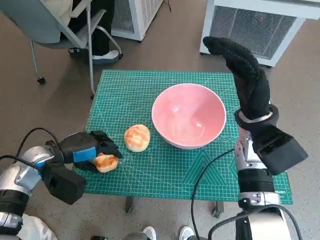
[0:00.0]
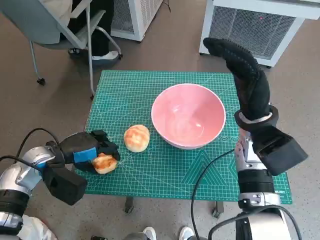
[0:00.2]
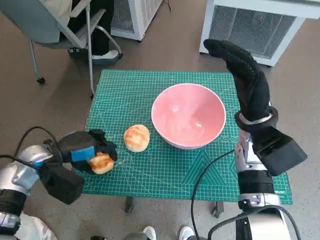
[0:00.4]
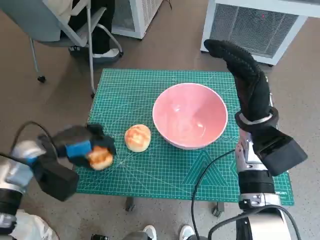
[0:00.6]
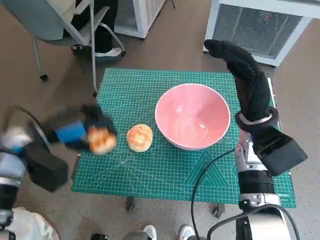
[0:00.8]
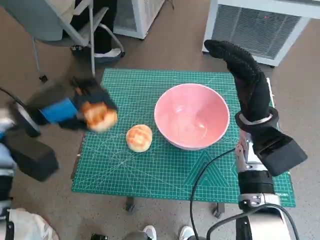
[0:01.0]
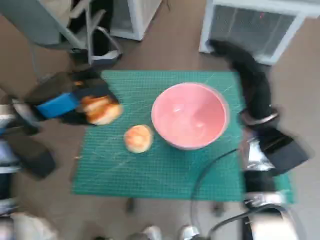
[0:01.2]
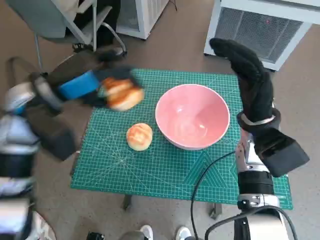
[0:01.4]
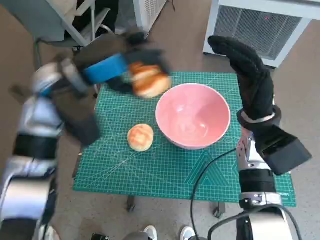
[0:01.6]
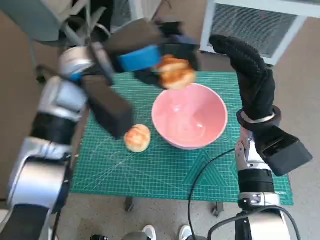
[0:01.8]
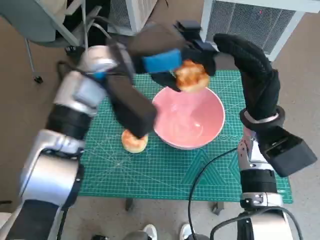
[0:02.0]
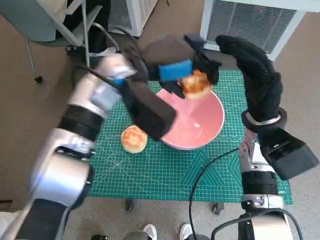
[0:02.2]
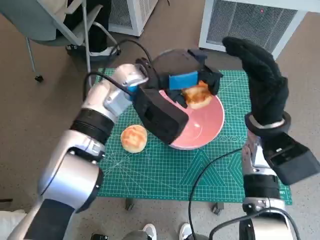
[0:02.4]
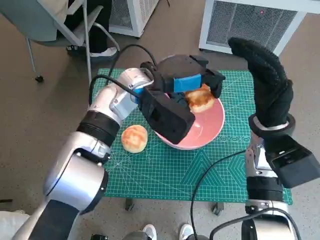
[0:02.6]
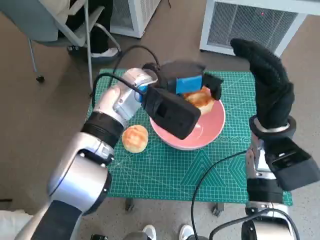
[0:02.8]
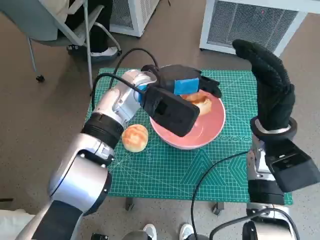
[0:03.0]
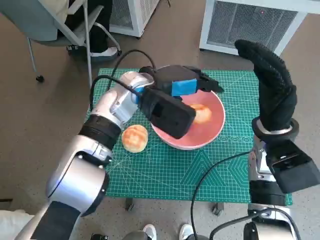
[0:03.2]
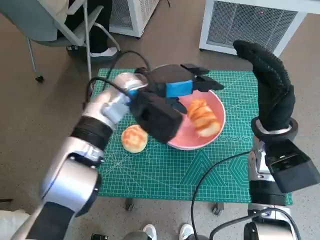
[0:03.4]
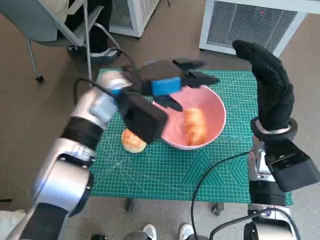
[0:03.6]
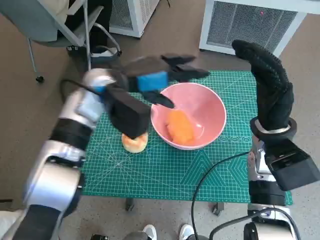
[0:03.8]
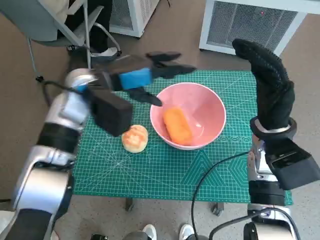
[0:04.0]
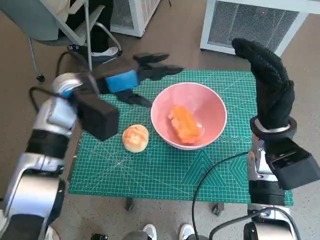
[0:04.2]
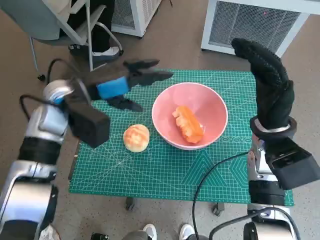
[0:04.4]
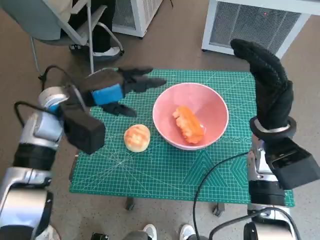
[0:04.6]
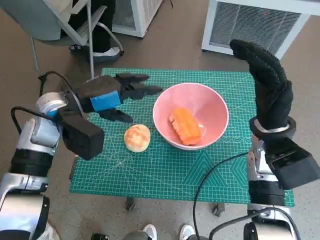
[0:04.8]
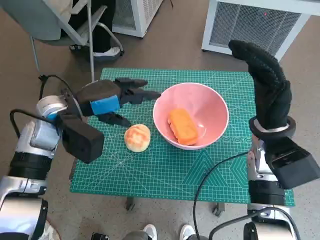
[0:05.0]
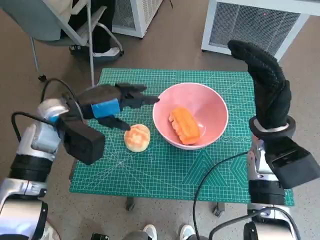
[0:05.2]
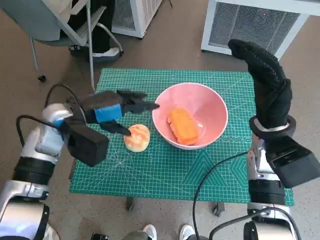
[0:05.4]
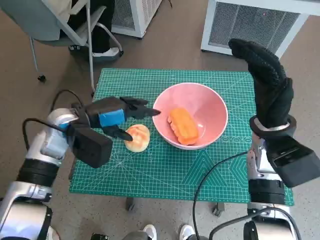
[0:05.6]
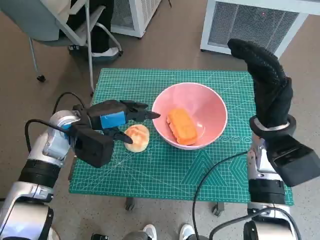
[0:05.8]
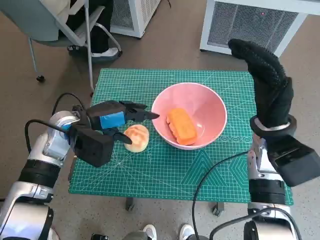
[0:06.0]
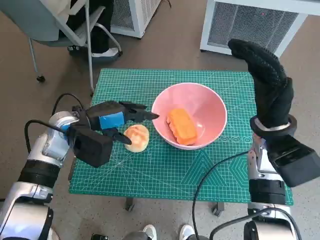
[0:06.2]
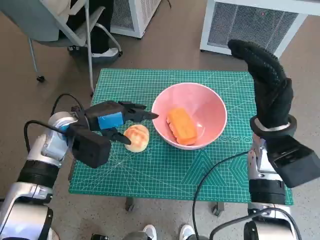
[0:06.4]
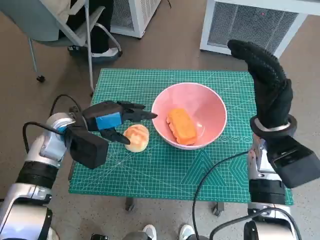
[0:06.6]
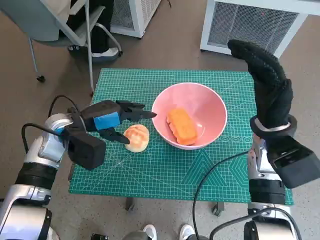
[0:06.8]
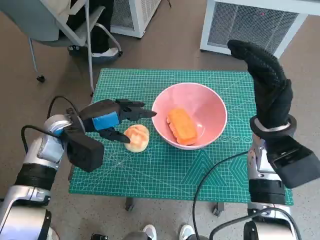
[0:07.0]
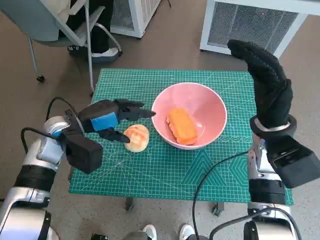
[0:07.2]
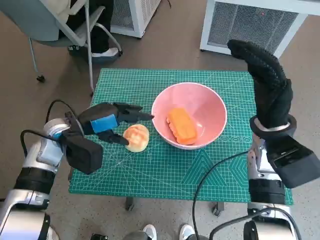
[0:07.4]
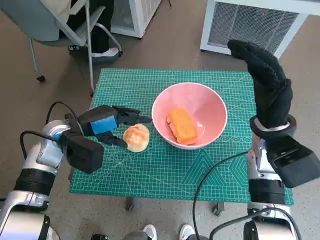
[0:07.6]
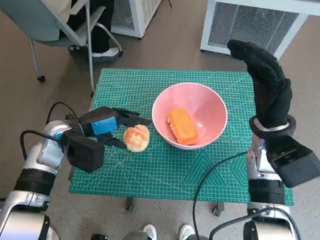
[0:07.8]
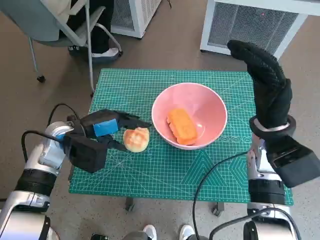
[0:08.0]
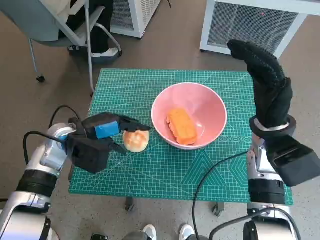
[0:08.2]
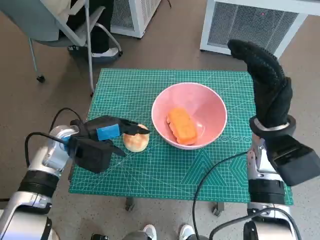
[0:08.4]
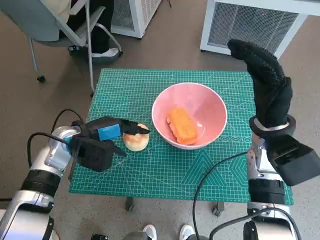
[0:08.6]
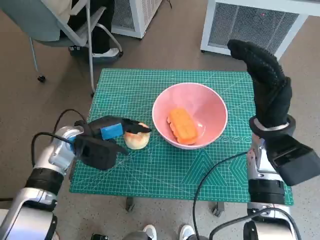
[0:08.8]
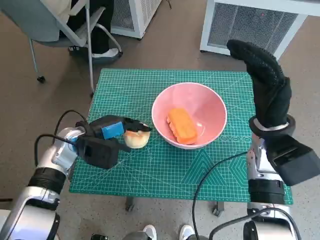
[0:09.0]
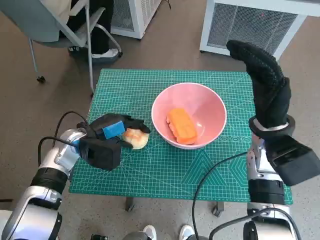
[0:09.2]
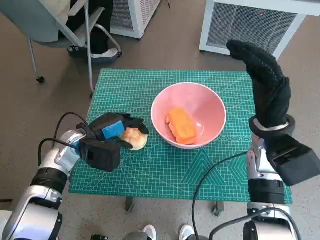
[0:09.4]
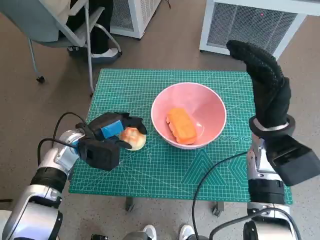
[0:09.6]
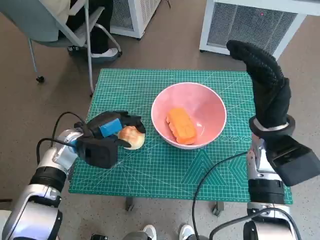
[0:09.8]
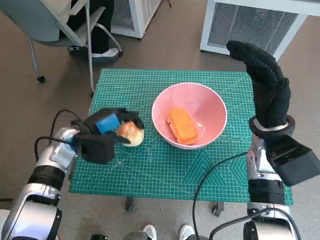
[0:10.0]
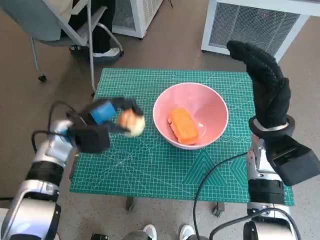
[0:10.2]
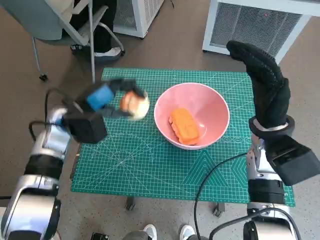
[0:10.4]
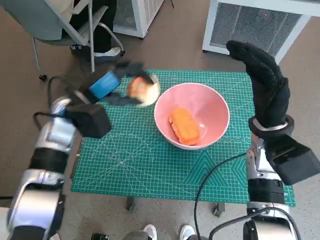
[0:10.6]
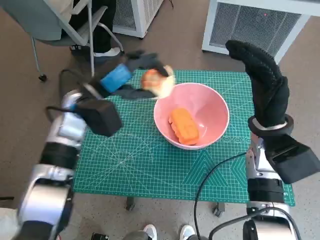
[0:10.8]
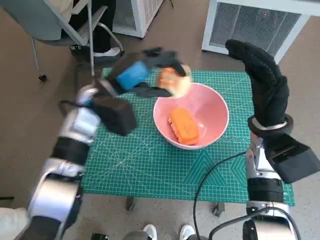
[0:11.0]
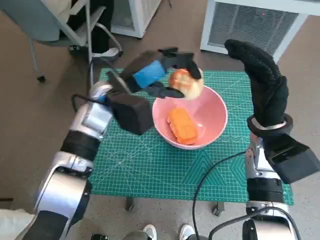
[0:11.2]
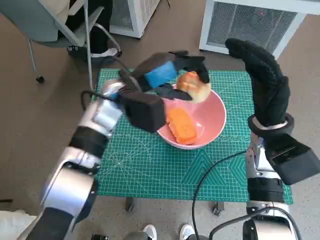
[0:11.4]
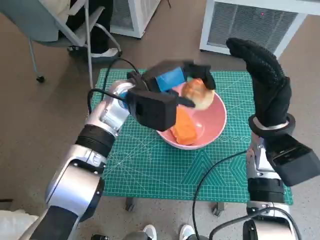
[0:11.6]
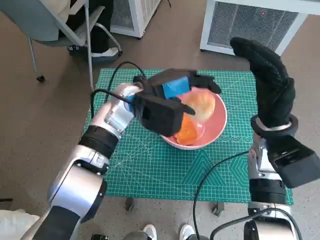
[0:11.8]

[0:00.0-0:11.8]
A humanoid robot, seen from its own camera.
Task of the whole recording: Push the bowl to the center of the table and put the bread into the bowl.
Step, 0:00.0 to 0:04.2: Place the long bread in pink bowl with left hand.
Step, 0:04.4 to 0:09.2: Grasp the round bread with left hand.
0:00.0 to 0:01.4: The left hand goes about 15 cm upward.
0:01.4 to 0:03.0: The left hand moves to the right, roughly 15 cm.
0:03.0 to 0:04.4: The left hand heads to the left, covering approximately 10 cm.
0:04.4 to 0:06.0: The left hand heads downward, covering about 5 cm.
0:06.0 to 0:08.8: There are only small adjustments of the hands.
0:10.4 to 0:11.8: The left hand goes some 15 cm to the right.

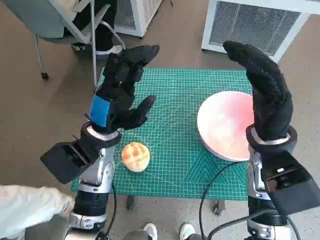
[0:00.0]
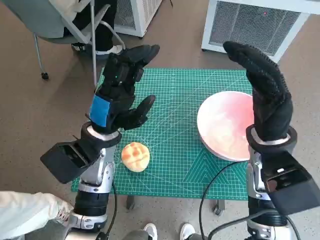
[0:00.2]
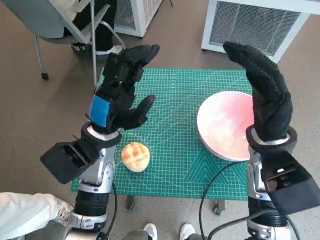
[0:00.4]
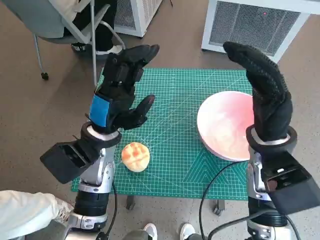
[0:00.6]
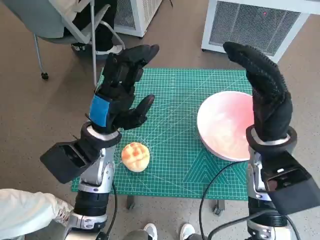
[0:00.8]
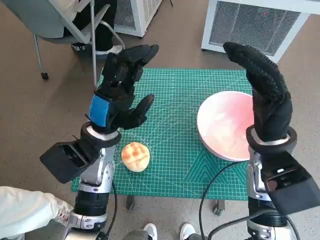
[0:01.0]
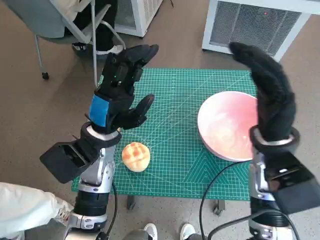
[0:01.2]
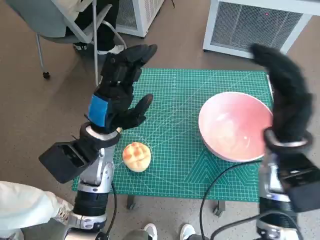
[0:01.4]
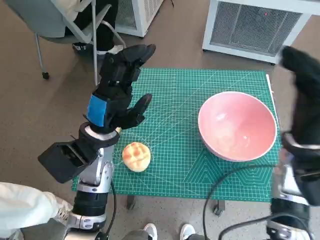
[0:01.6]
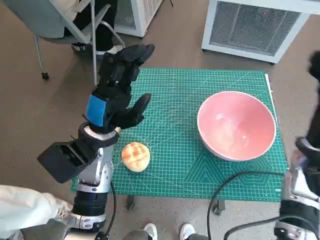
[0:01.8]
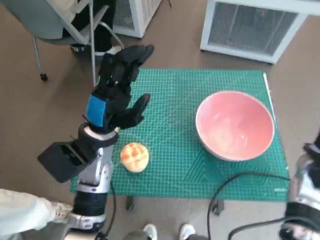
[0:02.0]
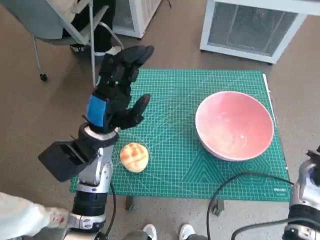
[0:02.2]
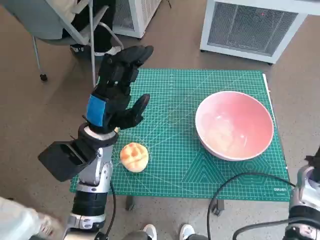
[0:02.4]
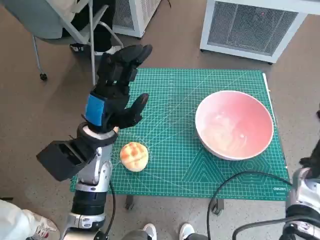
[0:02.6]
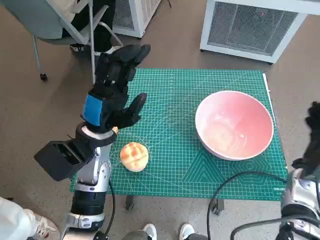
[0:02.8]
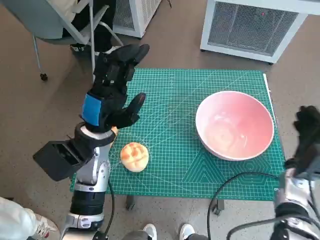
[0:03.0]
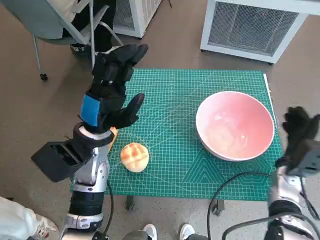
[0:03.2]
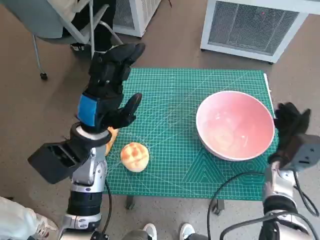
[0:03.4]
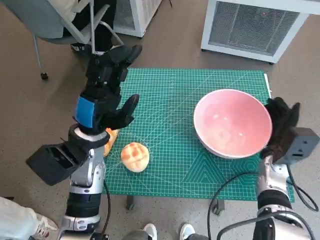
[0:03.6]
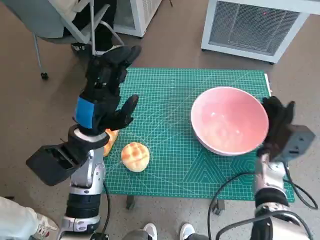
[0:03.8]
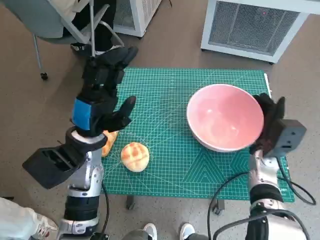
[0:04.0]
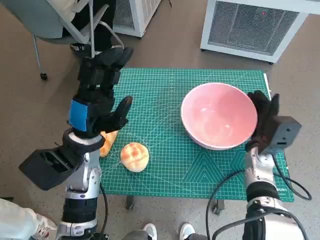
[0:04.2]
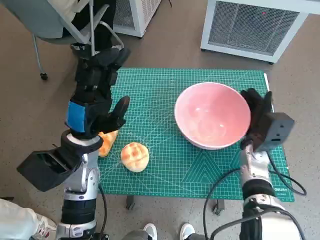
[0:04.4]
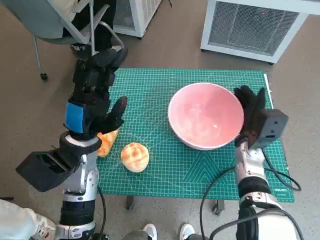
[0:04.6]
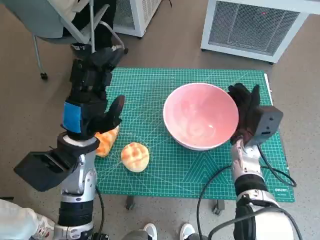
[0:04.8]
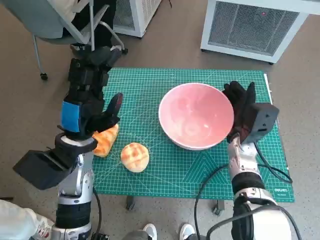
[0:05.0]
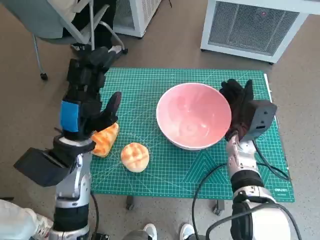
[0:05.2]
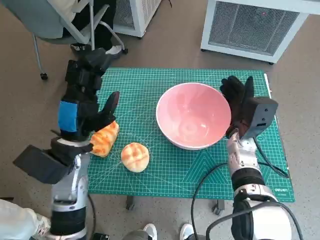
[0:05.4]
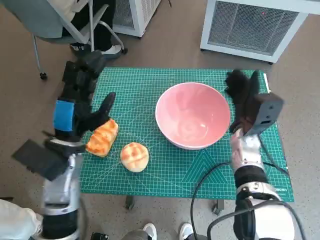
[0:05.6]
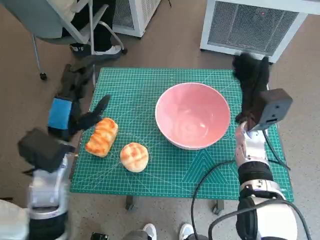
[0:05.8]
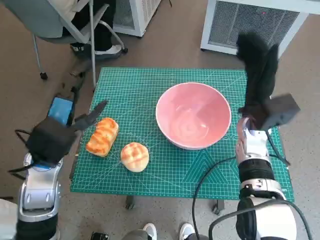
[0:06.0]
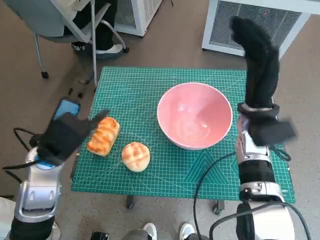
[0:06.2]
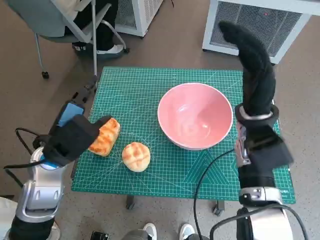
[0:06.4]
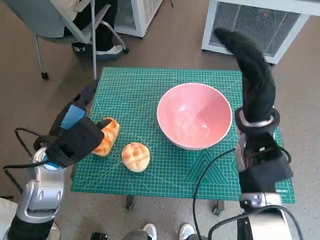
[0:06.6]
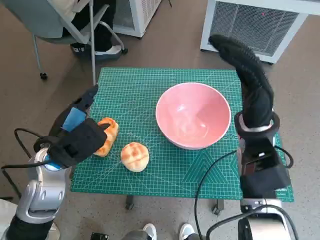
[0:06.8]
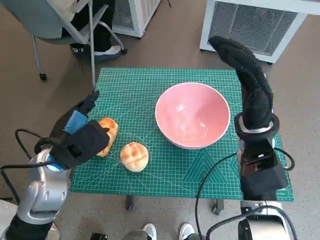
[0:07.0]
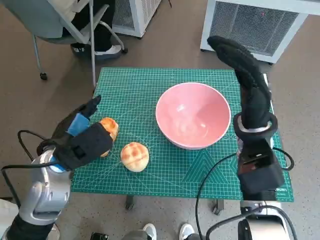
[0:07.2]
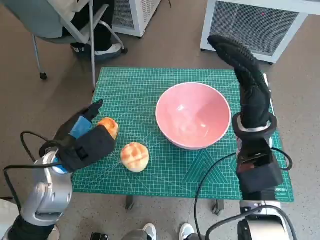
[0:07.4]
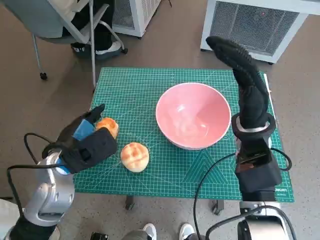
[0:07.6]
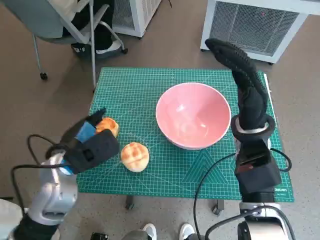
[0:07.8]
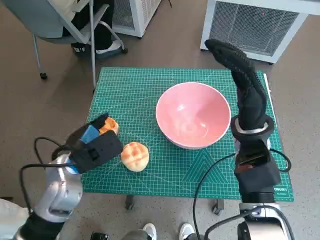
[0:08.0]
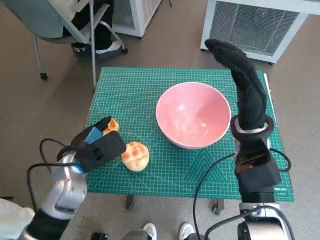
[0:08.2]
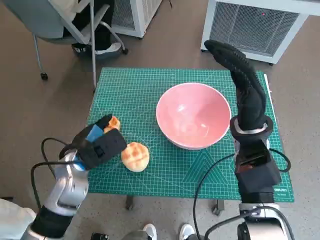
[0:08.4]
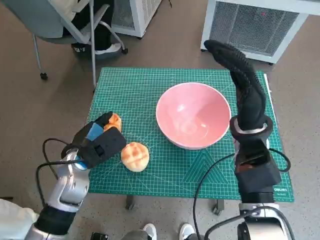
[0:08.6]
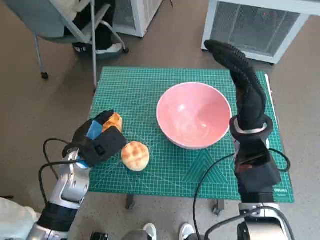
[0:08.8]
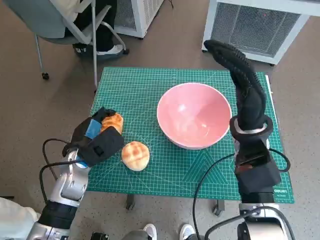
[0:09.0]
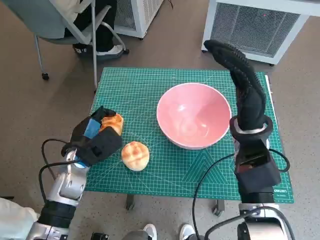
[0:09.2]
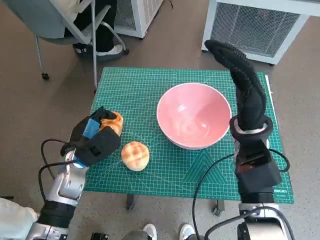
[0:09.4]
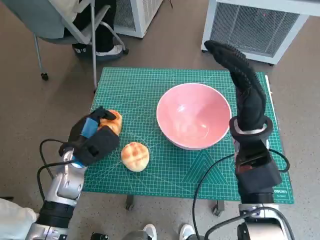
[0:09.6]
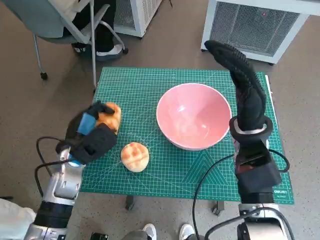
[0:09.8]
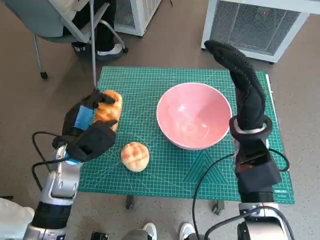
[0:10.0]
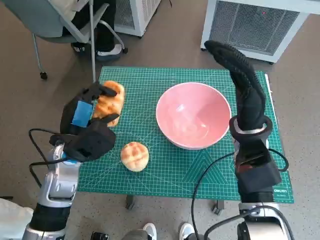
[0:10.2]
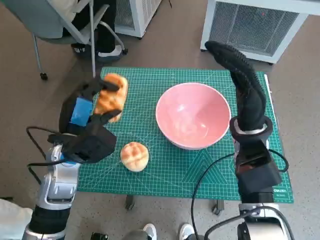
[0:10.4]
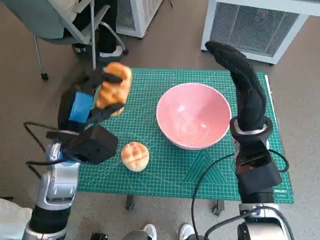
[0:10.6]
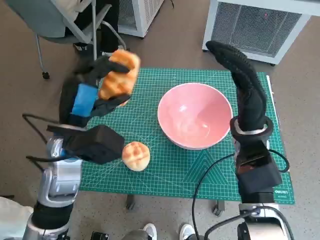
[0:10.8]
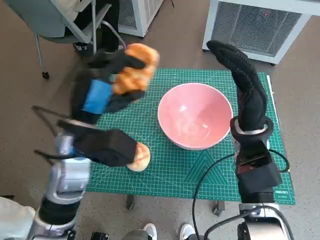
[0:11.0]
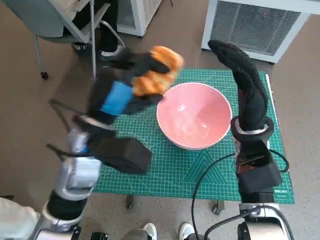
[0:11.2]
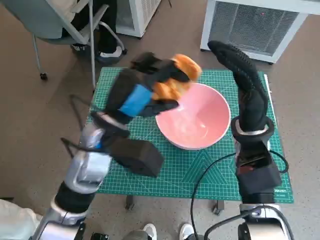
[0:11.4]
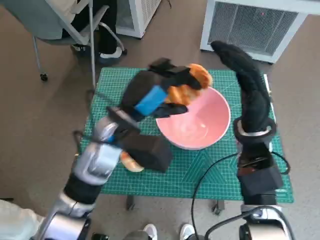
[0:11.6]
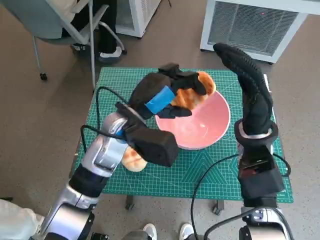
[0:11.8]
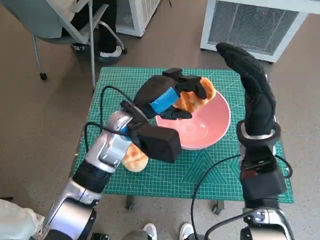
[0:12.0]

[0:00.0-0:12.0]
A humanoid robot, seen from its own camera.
Task of the whole recording: Push the bowl to the center of the table and put the bread into the bowl.
Step, 0:00.0 to 0:06.0: Move the pink bowl to the center of table with right hand.
Step, 0:06.2 to 0:09.4: Grasp the long bread with left hand.
0:01.6 to 0:03.0: The right hand shifts roughly 15 cm downward and to the right.
0:03.0 to 0:04.4: The right hand heads to the left, covering roughly 10 cm.
0:04.4 to 0:06.0: The left hand ends up approximately 5 cm from where it was. Meanwhile the right hand goes roughly 10 cm upward.
0:06.0 to 0:07.6: The right hand shifts by approximately 5 cm.
0:07.6 to 0:09.0: The left hand shifts approximately 5 cm downward.
0:09.0 to 0:10.4: The left hand travels upward by approximately 5 cm.
0:10.4 to 0:12.0: The left hand is displaced to the right and forward by roughly 10 cm.
